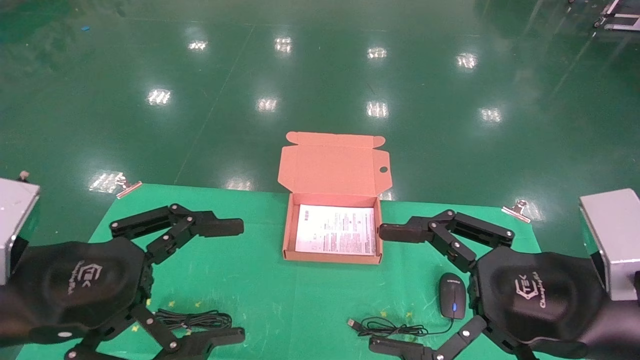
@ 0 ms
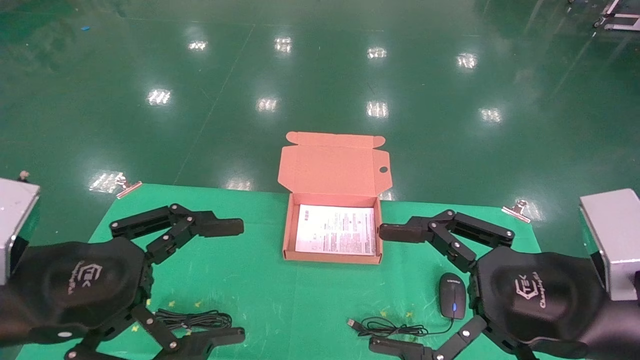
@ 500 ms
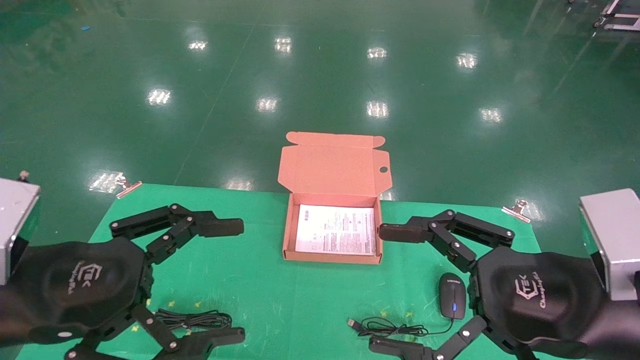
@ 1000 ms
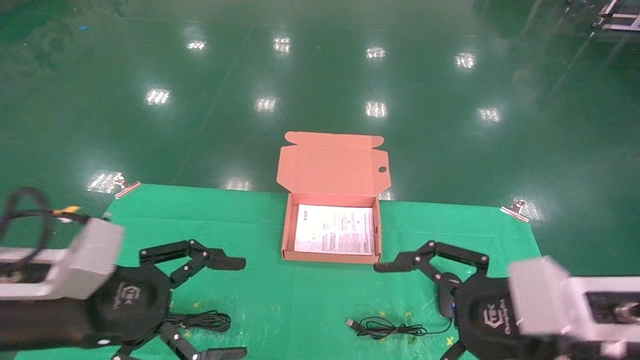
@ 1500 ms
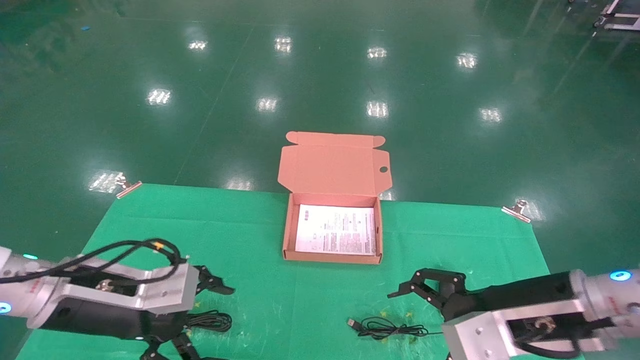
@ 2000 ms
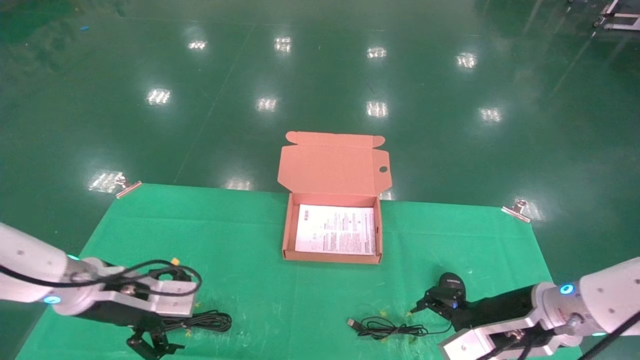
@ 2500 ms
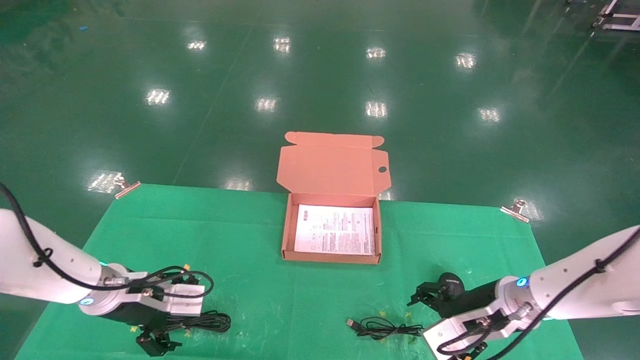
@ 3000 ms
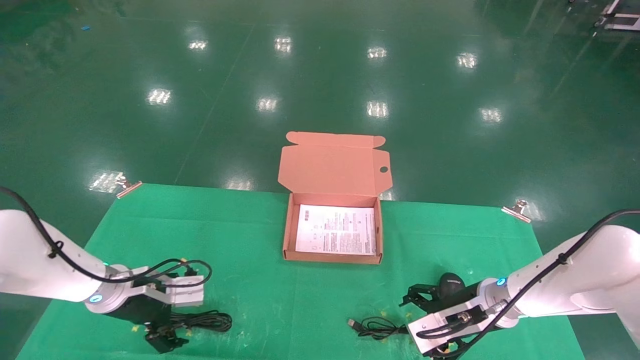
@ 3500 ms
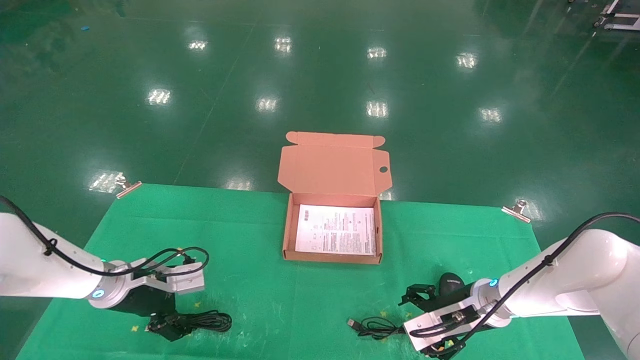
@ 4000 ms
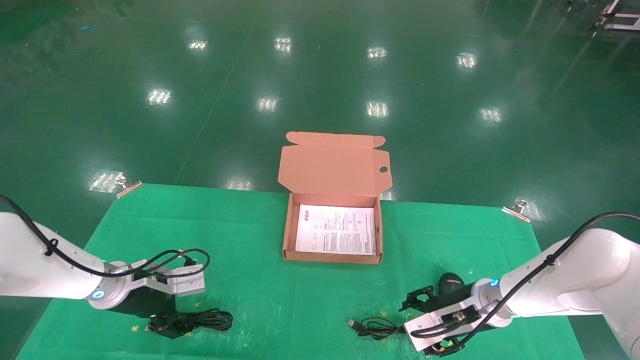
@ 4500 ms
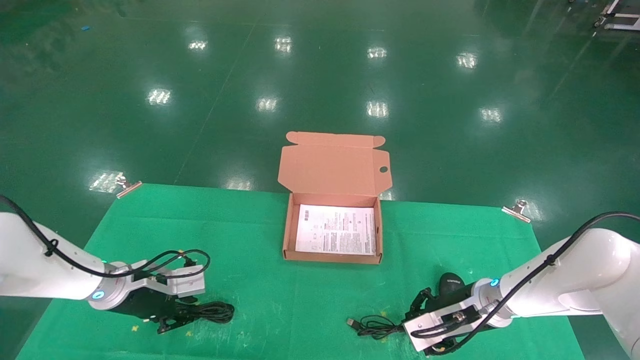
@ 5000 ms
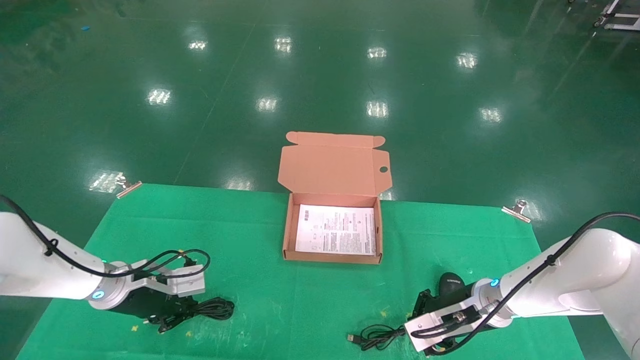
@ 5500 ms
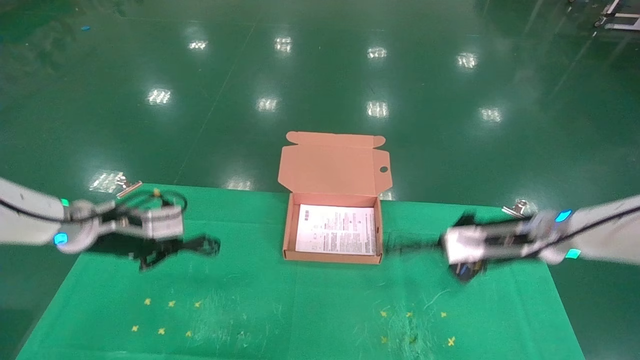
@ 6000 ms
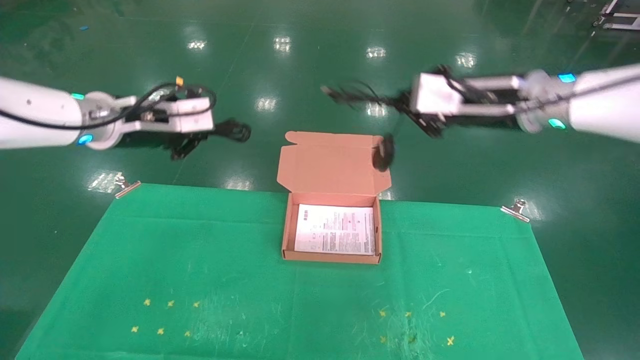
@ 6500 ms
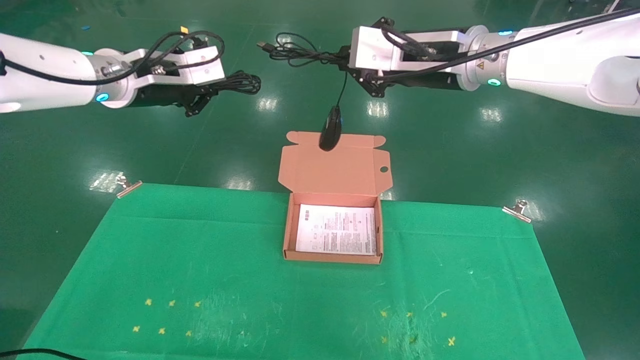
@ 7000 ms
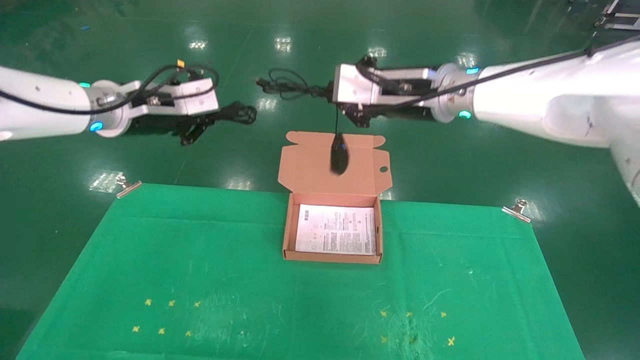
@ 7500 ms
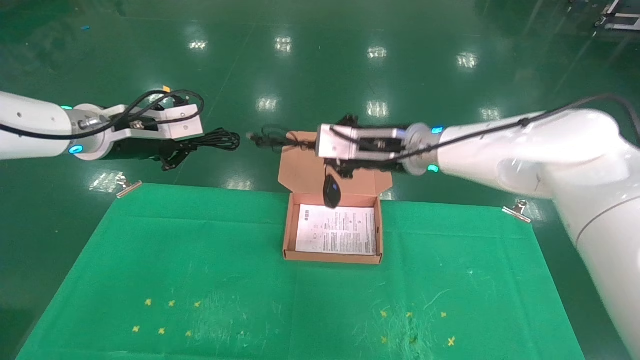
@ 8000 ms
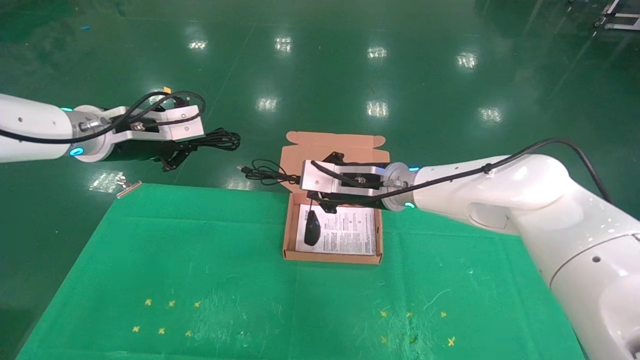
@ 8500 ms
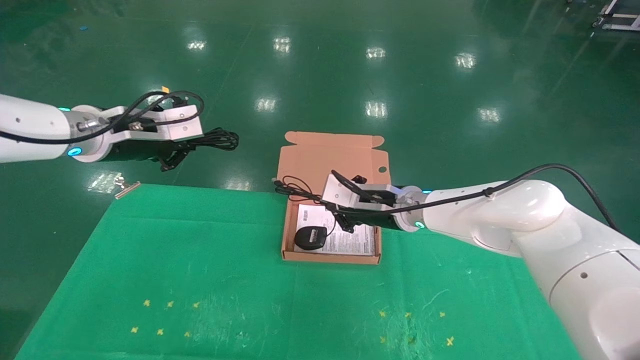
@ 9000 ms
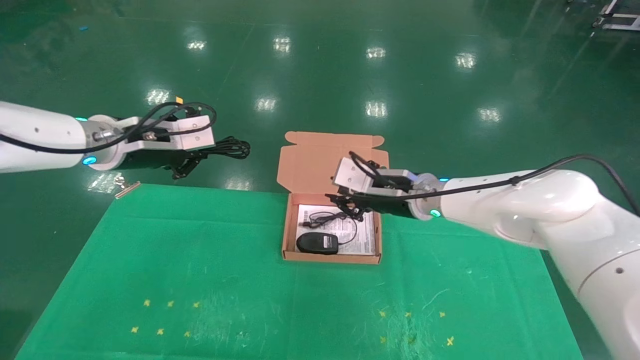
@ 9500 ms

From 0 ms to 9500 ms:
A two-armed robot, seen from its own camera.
Task of the whole recording: grasp data cable left put into box grasp mouse right put into box.
Step, from 1500 ms to 5000 ms: Grab and pick up both the mouse and power cord from the accessory packaging area at the same time.
From 0 ms to 2000 ms: The two grippers go approximately 10 cm forward and downward.
From 2000 ms to 4000 ms: Both grippers move forward and downward, about 20 cm.
From 4000 ms to 5500 ms: The left gripper closes up. The right gripper closes up.
From 5500 ms to 7500 ms: Both grippers move upward, some 30 cm.
From 7500 ms to 9500 ms: The right gripper heads downward, covering some 15 cm.

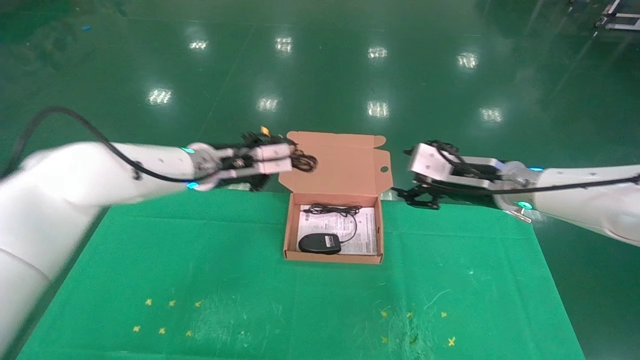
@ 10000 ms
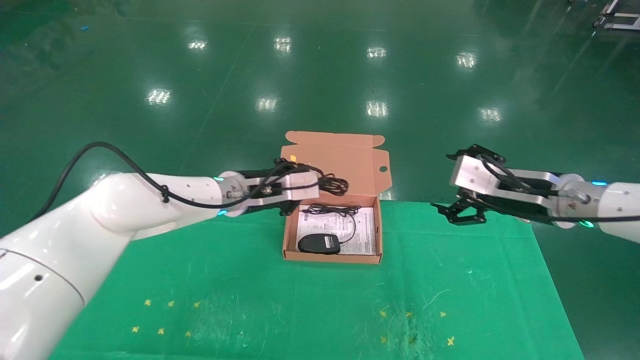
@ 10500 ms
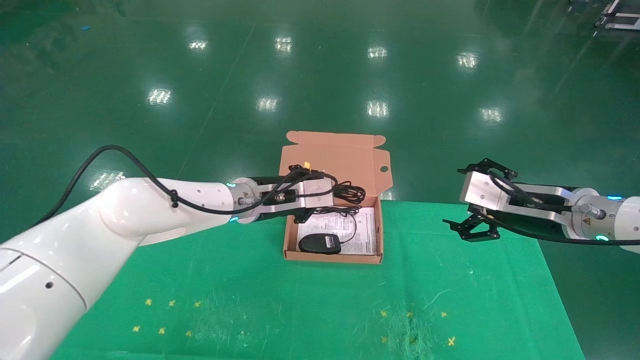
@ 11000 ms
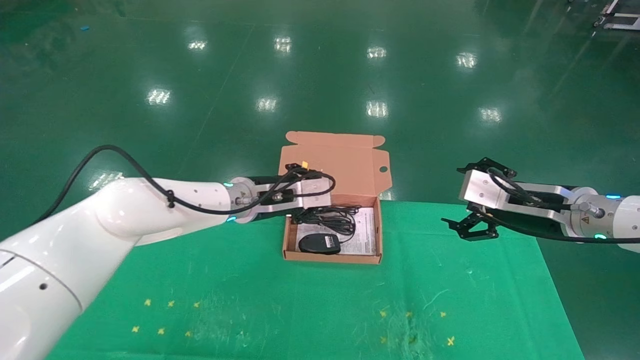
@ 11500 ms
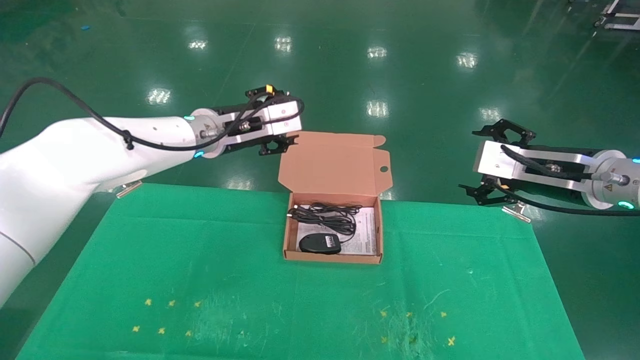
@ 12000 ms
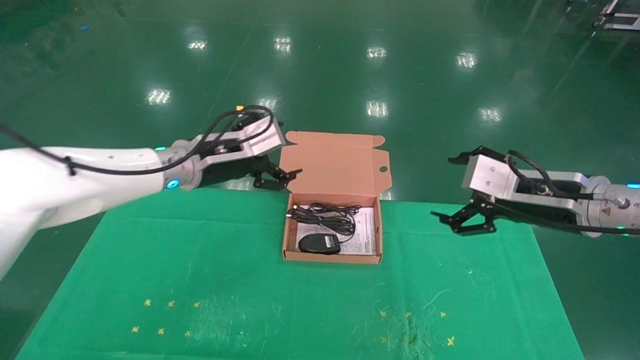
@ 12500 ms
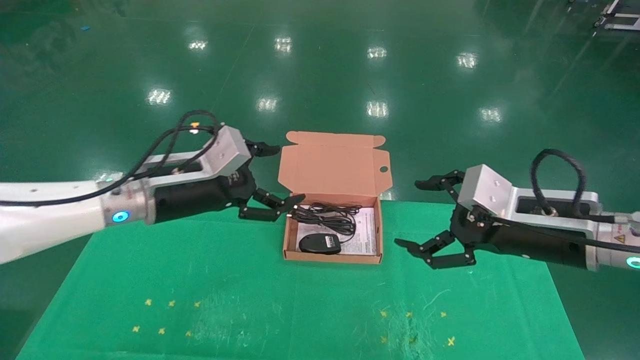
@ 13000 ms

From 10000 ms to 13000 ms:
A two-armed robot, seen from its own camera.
Task of the whole recording: grasp data cable left put into box grasp mouse right put into box.
From 10000 ms to 11500 ms: The left gripper moves to the right, roughly 5 cm, while the right gripper heads to the right and backward, covering some 10 cm, and opens its fingers.
From 11500 ms to 13000 ms: The left gripper shifts approximately 15 cm to the left and backward, and opens; the right gripper is displaced backward by some 5 cm.

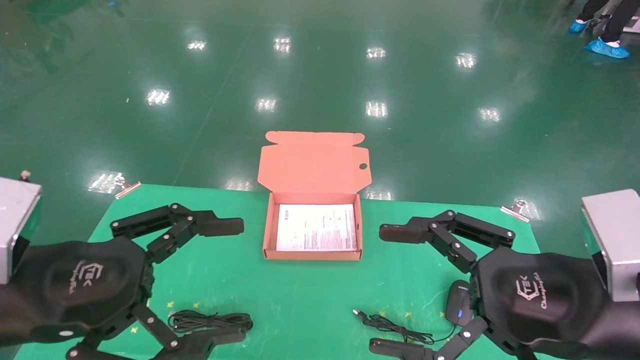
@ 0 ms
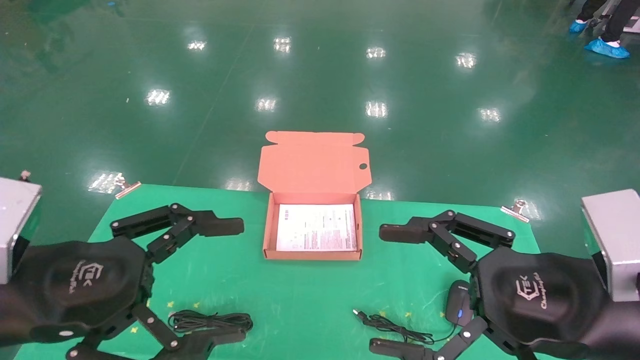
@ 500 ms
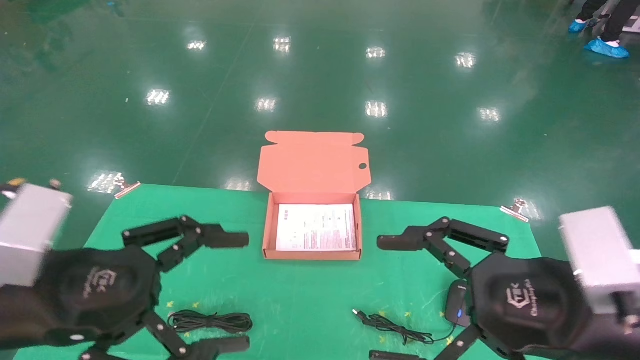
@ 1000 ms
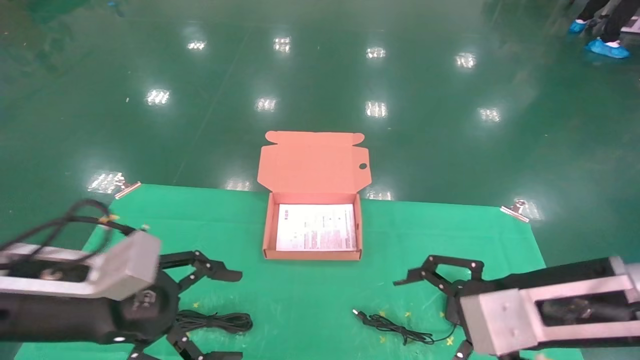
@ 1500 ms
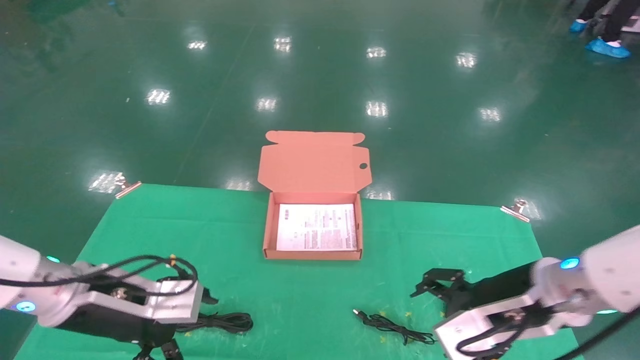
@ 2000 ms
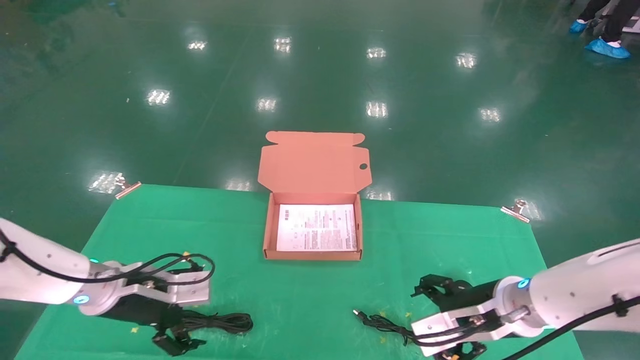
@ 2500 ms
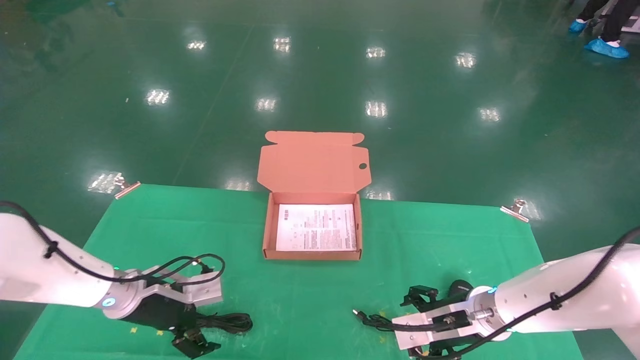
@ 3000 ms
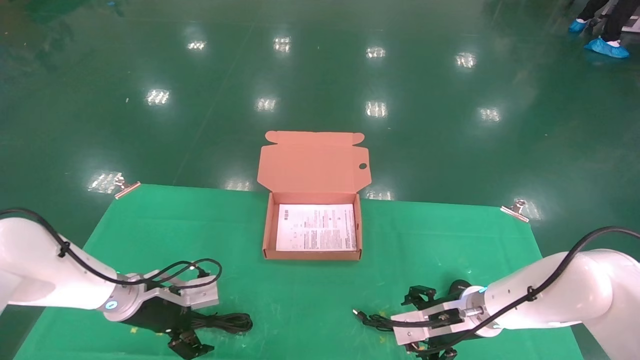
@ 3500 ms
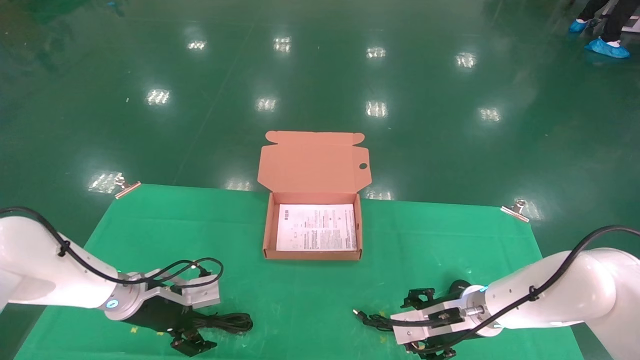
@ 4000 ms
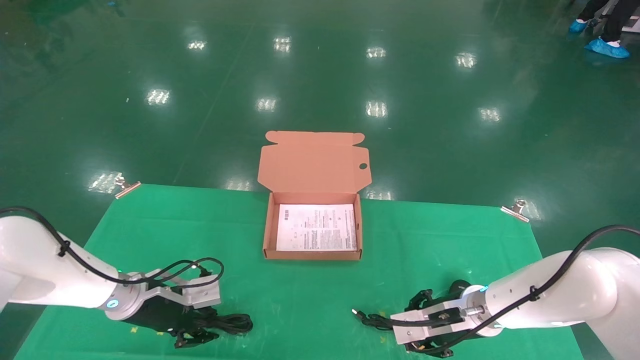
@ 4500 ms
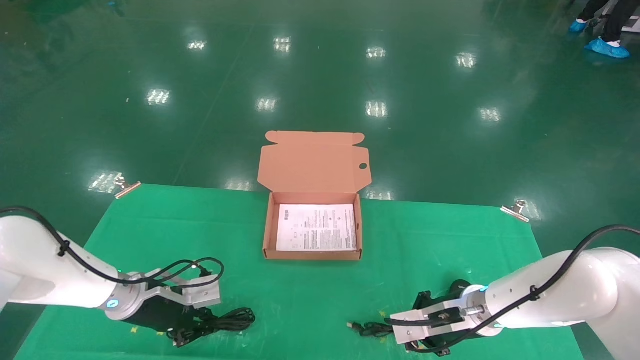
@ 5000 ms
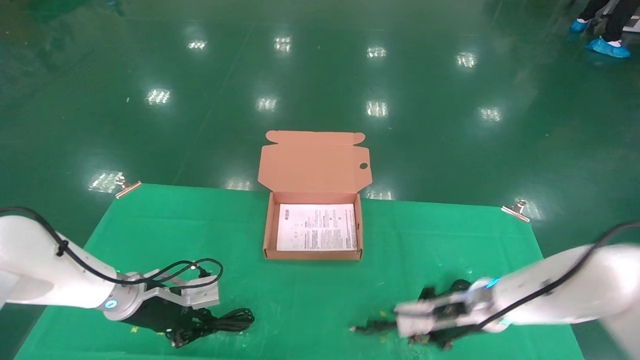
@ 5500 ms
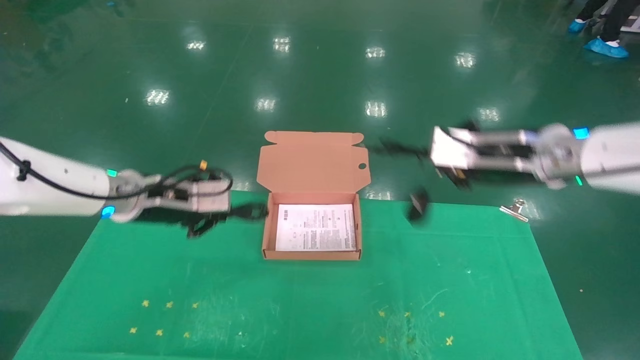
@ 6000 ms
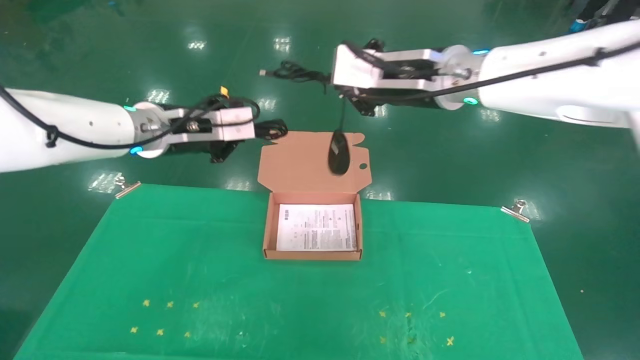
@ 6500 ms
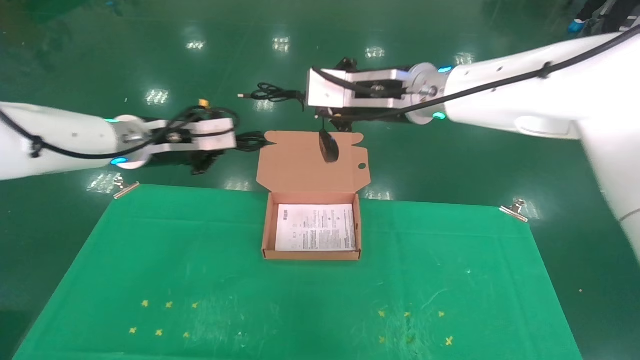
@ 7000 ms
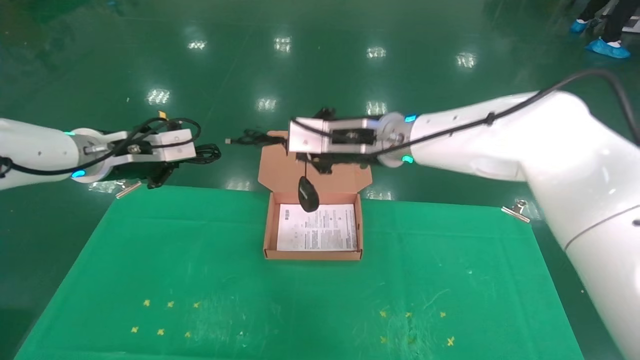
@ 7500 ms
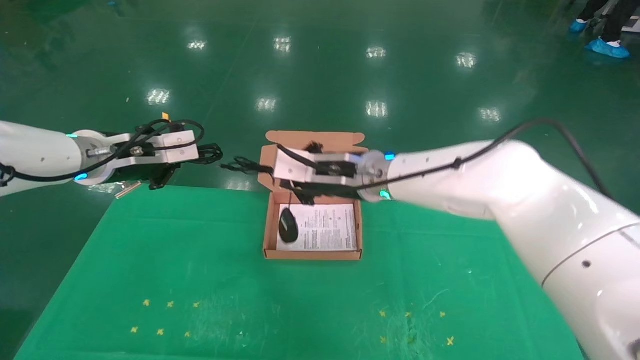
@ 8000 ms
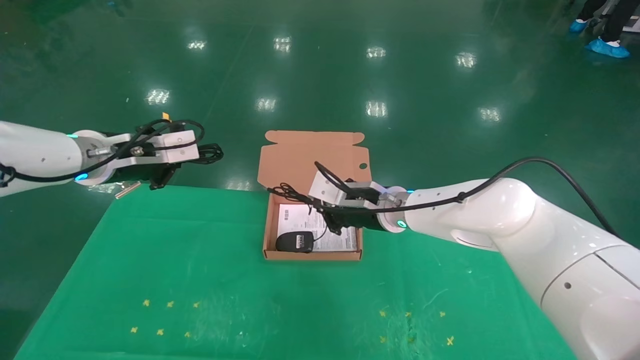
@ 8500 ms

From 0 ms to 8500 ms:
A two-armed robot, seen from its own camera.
Task of the whole recording: grasp data cable left put into box grasp mouse right put into box.
Step, from 1500 ms to 5500 ms: Grab and pick up both the mouse and power cord from the accessory packaging area at the same time.
From 0 ms to 2000 ms: Both grippers travel together forward and downward, about 15 cm.
From 2000 ms to 4000 ms: The right gripper shifts some 15 cm downward and forward, while the left gripper shifts about 10 cm forward and downward.
From 4000 ms to 6500 ms: The two grippers go some 30 cm upward. The right gripper closes up; the left gripper closes.
From 6500 ms to 8500 ms: The right gripper is displaced downward by approximately 20 cm. The left gripper moves to the left, some 5 cm.
